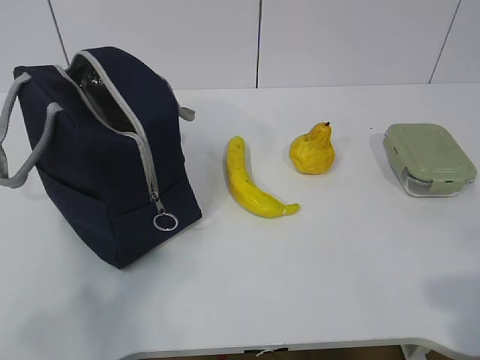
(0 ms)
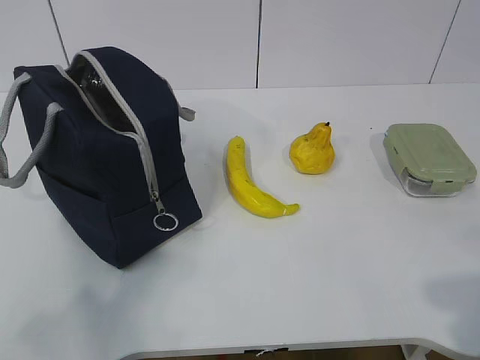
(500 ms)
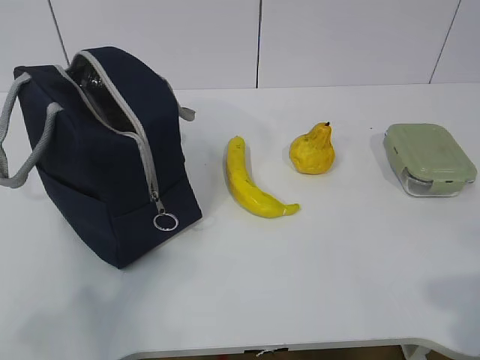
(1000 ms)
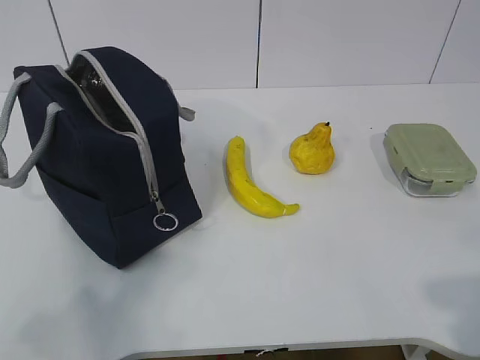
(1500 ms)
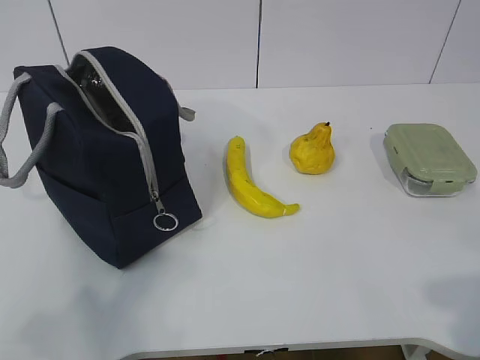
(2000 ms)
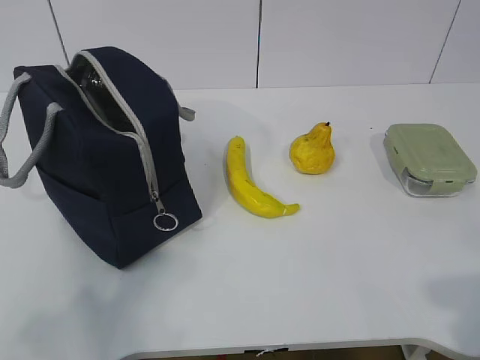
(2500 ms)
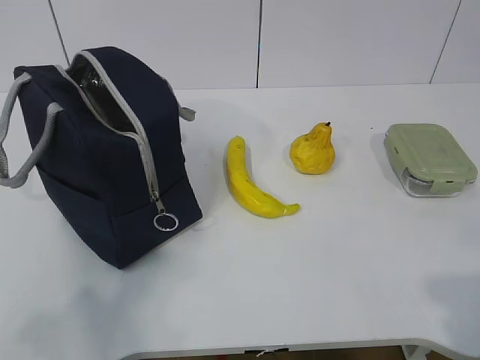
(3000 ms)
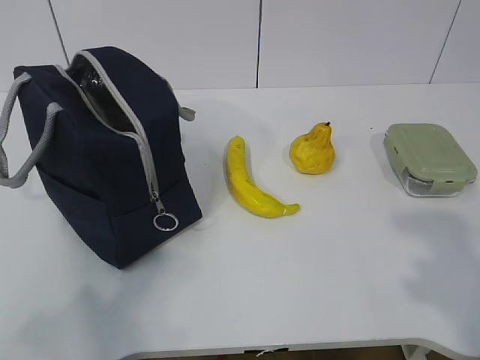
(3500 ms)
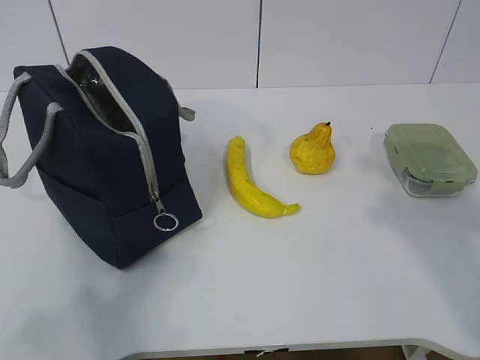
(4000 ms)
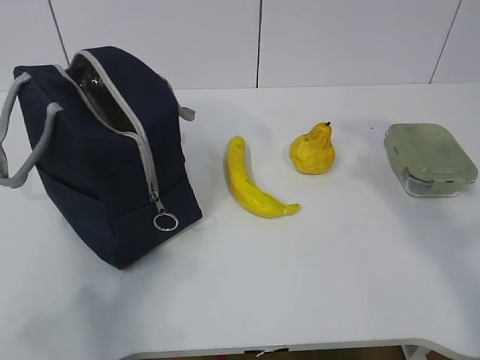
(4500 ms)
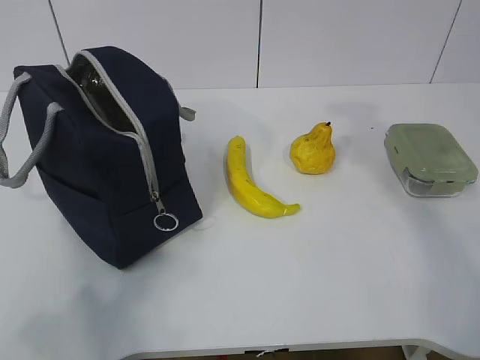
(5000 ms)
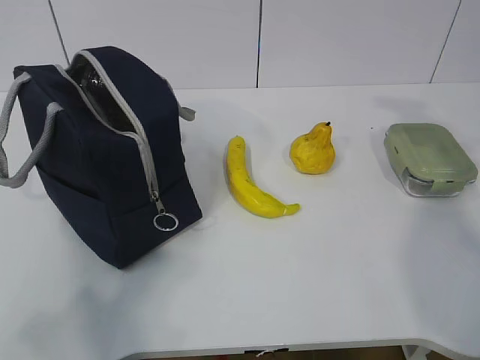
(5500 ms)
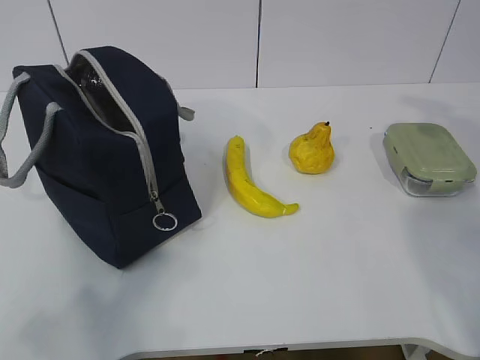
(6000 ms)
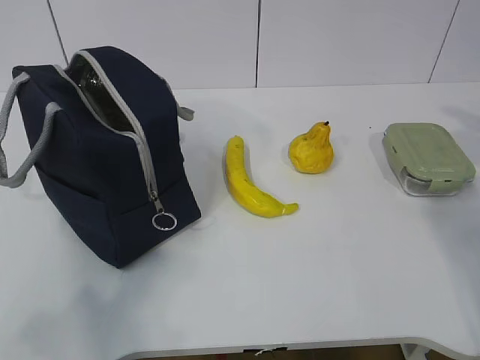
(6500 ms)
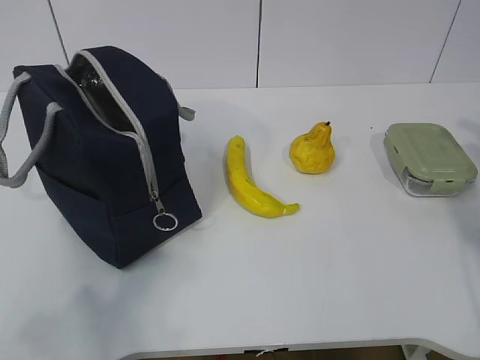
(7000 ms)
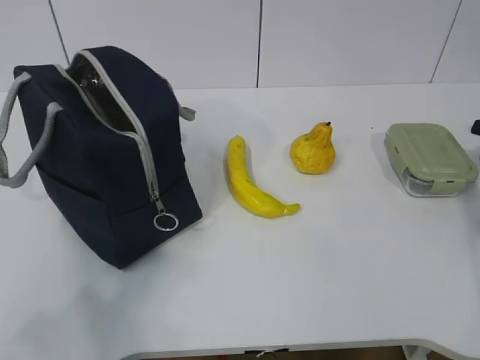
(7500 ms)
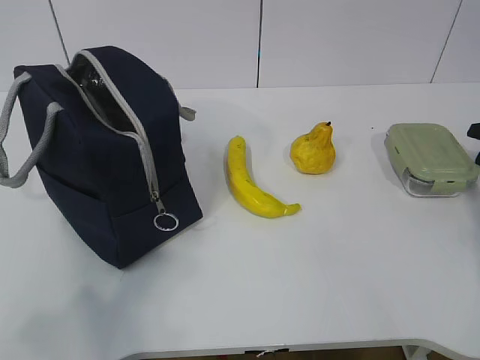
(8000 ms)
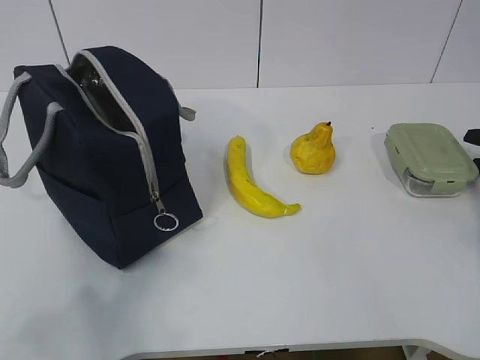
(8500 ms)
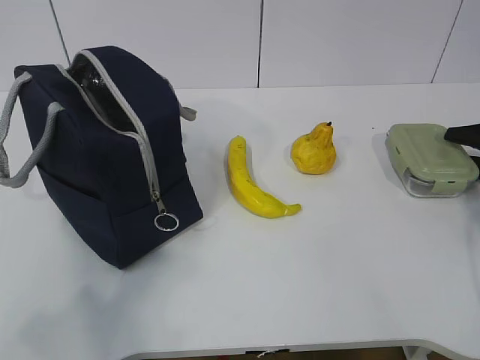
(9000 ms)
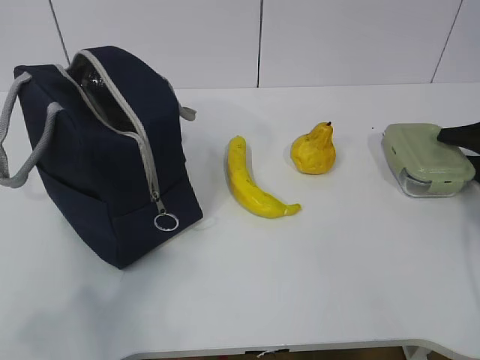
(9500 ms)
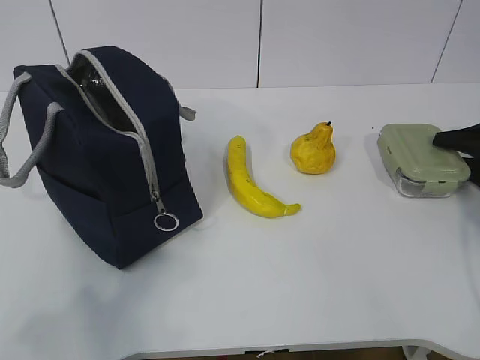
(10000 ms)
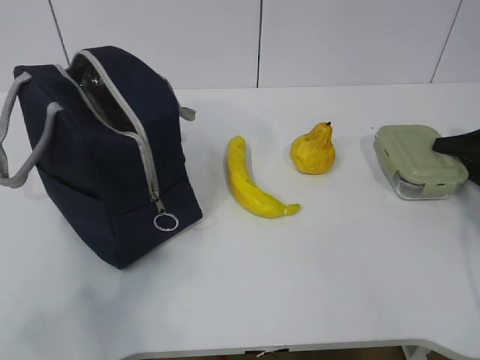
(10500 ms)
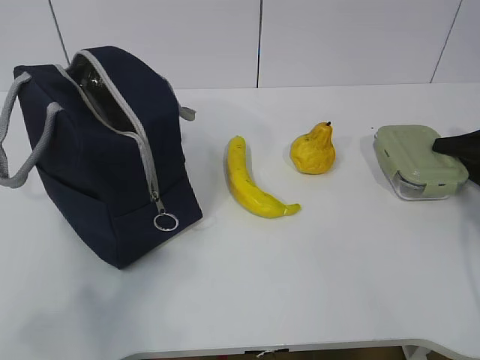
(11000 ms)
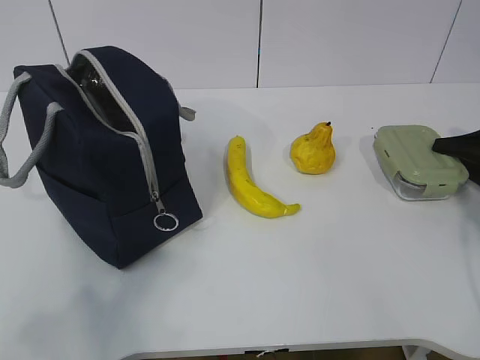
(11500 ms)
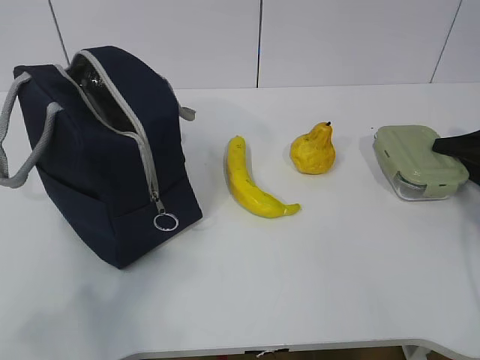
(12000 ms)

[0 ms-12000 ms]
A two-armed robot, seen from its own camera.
Step, 0 ms to 11000 ms: Grab the lunch box with your right hand.
2000 ms to 4000 ms: The right gripper moves forward and upward, some 15 cm.
6000 ms to 8000 ms: The right gripper moves downward and to the right, roughly 20 cm.
8000 ms to 10000 ms: The grippers move only a little.
10000 ms to 12000 ms: The right gripper closes up.

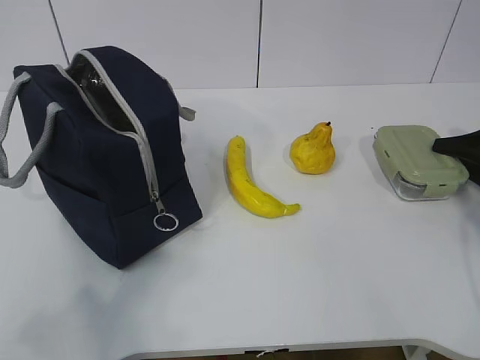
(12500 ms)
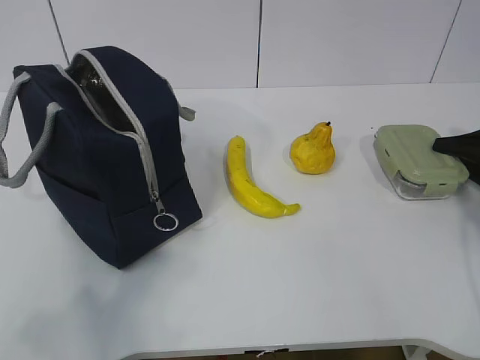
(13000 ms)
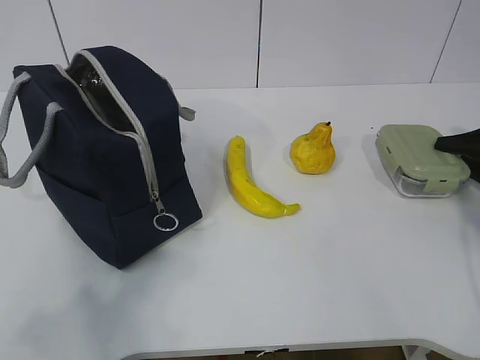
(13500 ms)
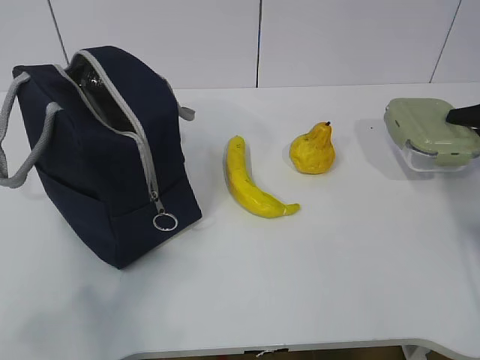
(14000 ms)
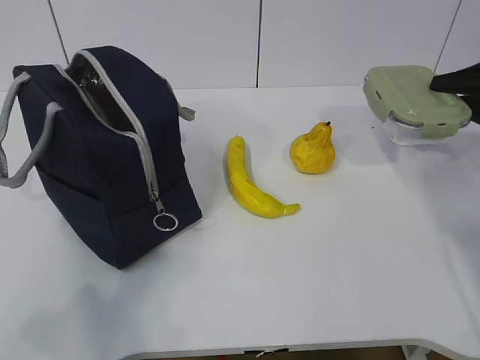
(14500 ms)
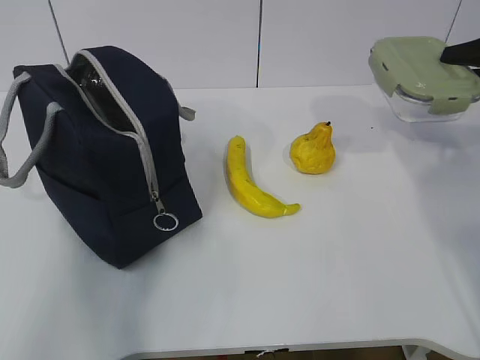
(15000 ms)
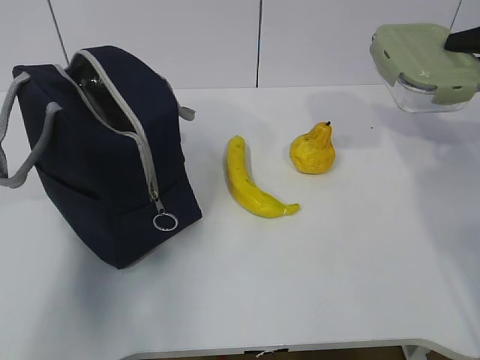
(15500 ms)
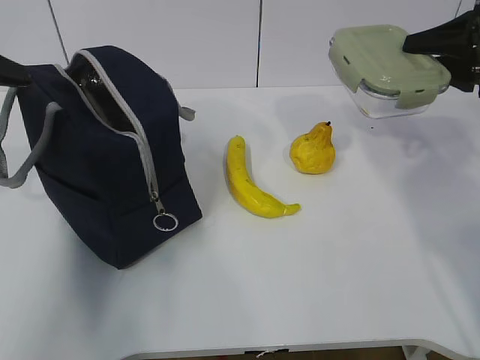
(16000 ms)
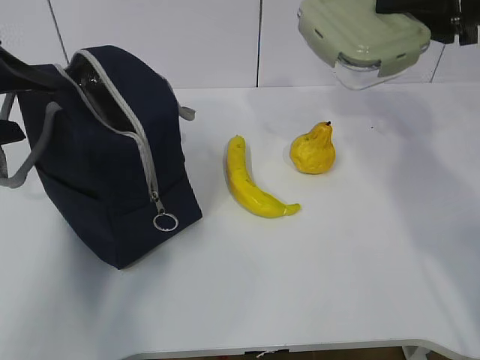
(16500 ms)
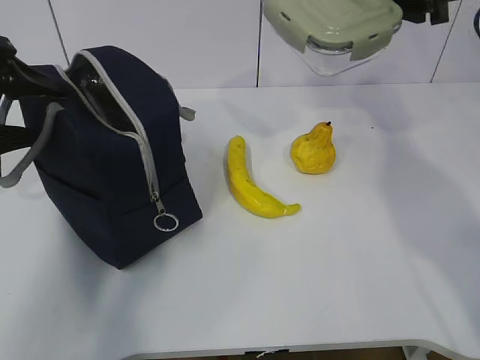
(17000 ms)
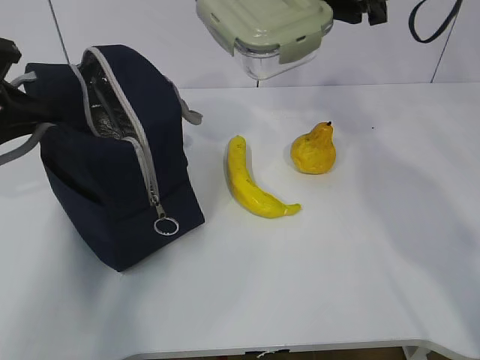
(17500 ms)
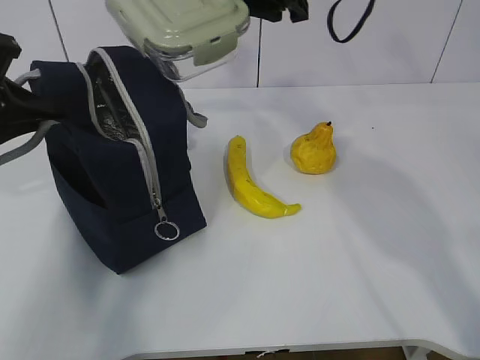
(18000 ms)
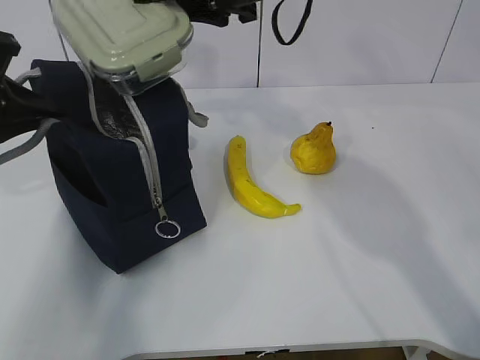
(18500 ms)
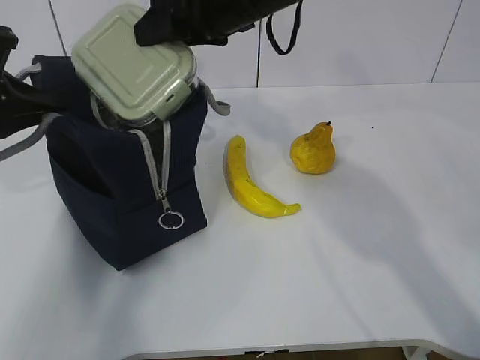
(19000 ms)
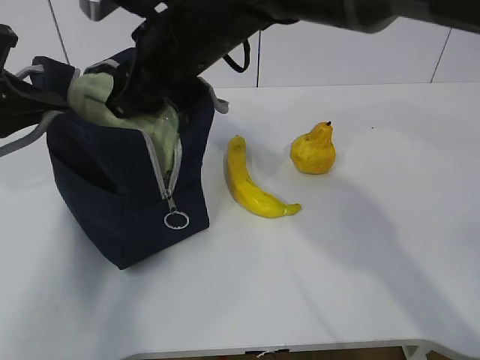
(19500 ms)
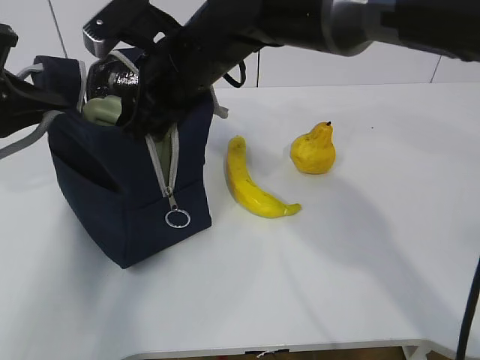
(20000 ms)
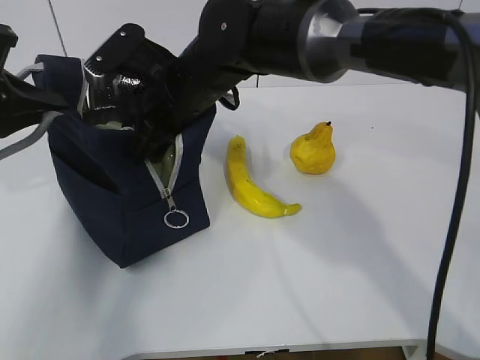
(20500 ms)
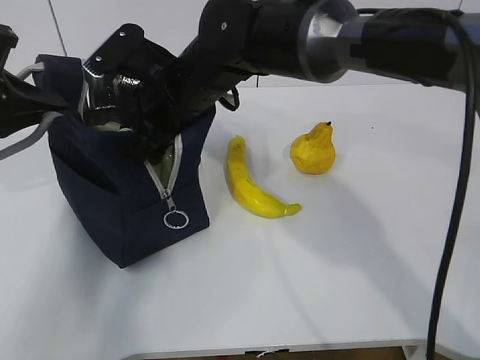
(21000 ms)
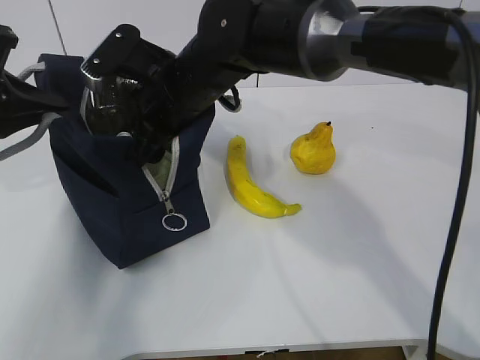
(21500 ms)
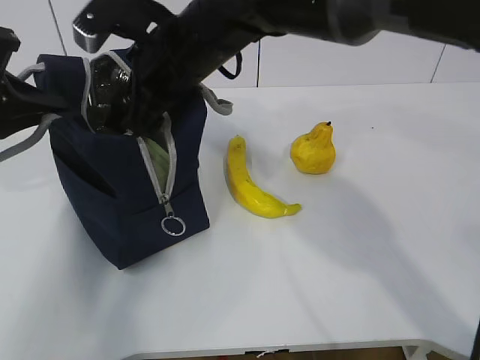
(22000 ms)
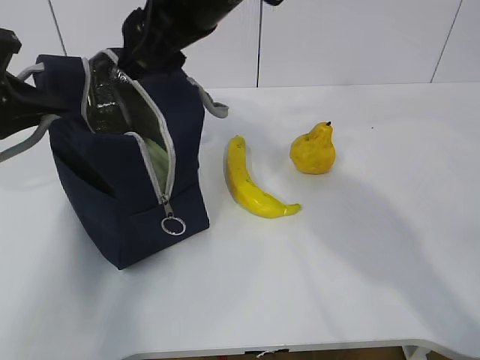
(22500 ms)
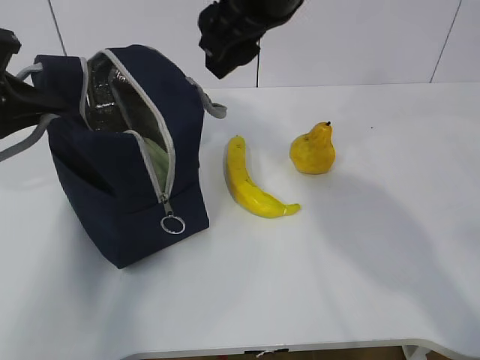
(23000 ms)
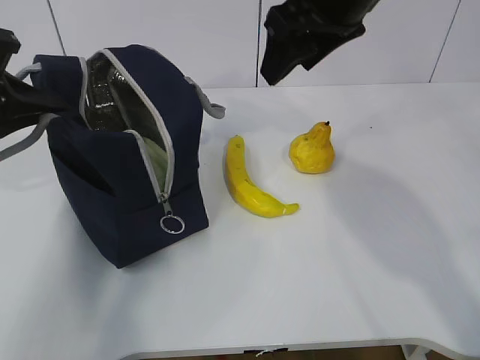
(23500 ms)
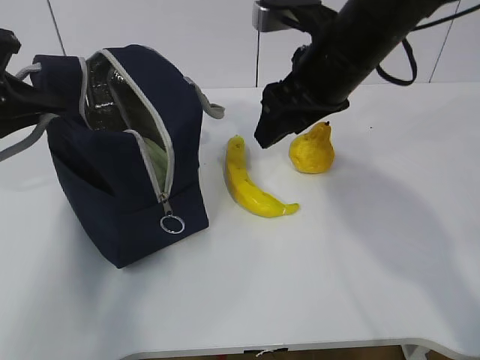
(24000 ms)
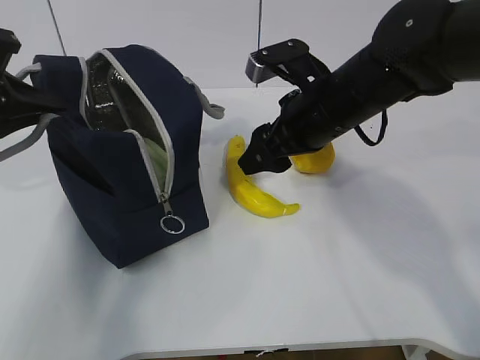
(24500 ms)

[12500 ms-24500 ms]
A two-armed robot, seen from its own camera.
Step, 12500 ms to 15500 ms: Grab the lunch bag with your left hand.
Step, 16000 ms to 17500 ms: Place it into the bag with your right hand.
Step, 18000 ms to 23500 ms: Grab the banana with your right hand.
12500 ms to 14500 ms: The right gripper heads upward, covering roughly 10 cm.
14500 ms to 16500 ms: The left gripper moves forward, some 25 cm; the right gripper heads upward and to the left, covering about 15 cm.
16500 ms to 18500 ms: The left gripper closes up, while the right gripper moves to the left, some 25 cm.
18500 ms to 20500 ms: The right gripper heads downward and to the left, covering some 15 cm.
20500 ms to 22500 ms: The right gripper shifts about 10 cm upward.
22500 ms to 24500 ms: The right gripper shifts some 15 cm downward and to the right.

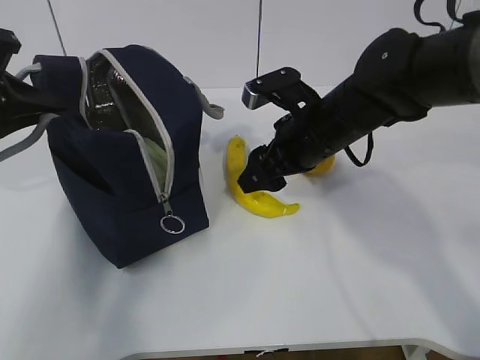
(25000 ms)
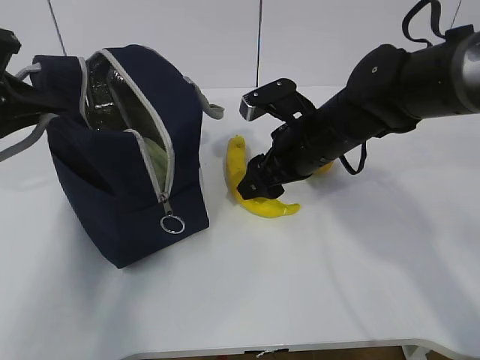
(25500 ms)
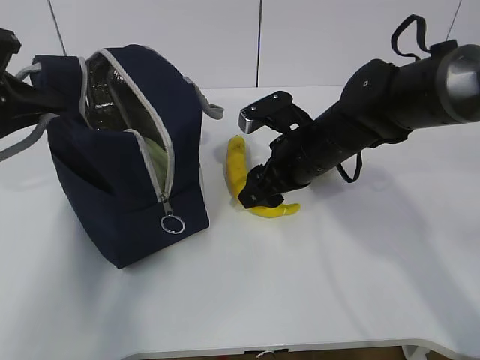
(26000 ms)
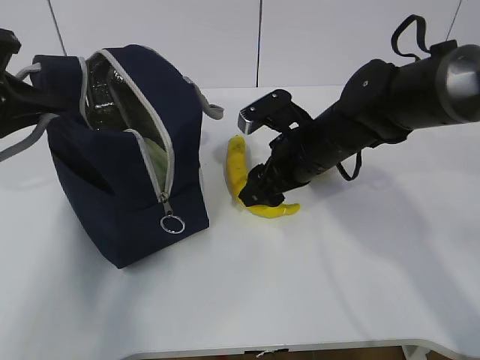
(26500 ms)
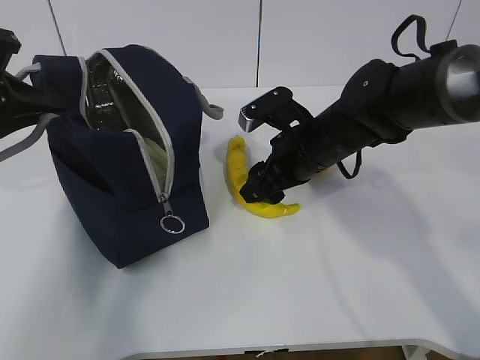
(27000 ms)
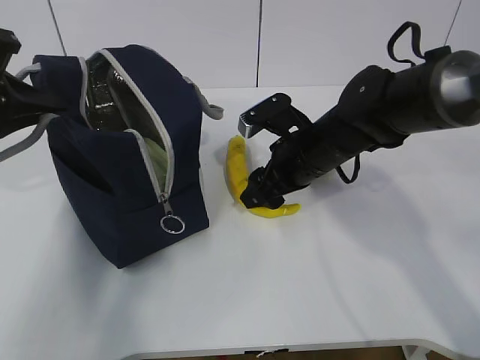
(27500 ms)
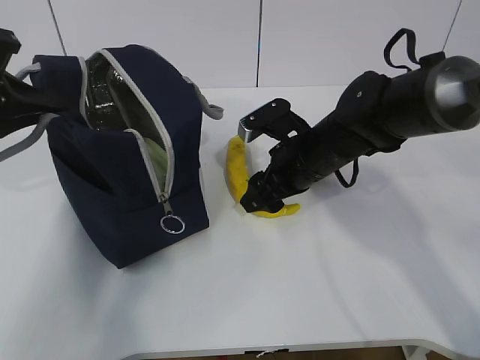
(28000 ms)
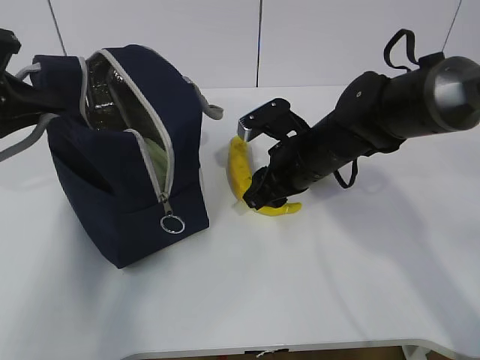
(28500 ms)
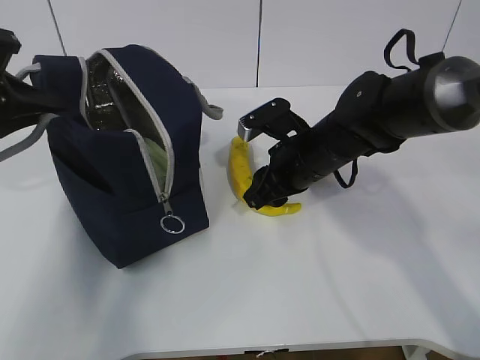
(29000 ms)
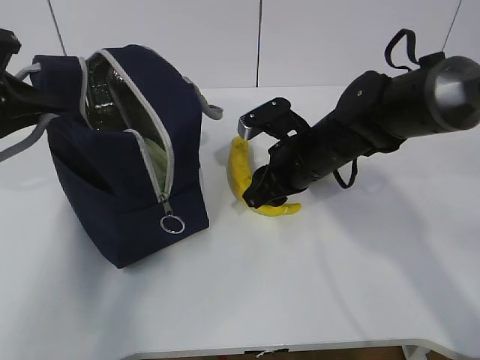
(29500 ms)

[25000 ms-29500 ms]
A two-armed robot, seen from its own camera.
Step, 25000 ms to 28000 ms: Place it into the bag with your right hand.
25000 ms to 27000 ms: The grippers move only a little.
27000 ms to 29500 ms: The right gripper closes.
